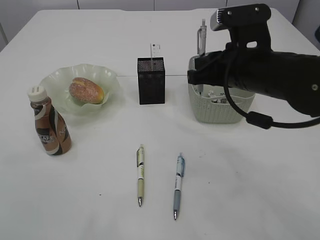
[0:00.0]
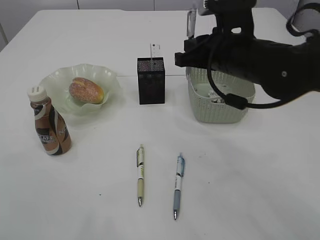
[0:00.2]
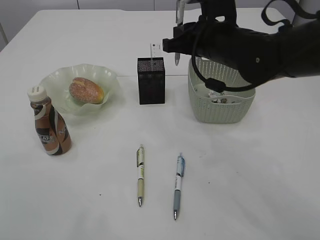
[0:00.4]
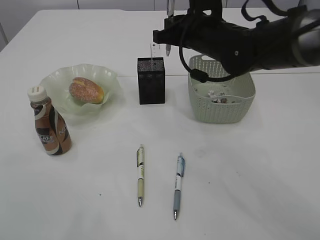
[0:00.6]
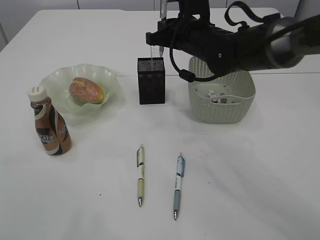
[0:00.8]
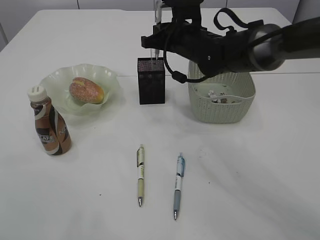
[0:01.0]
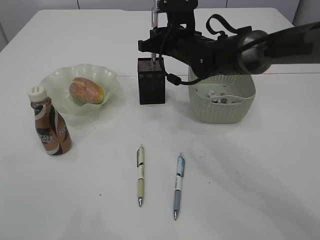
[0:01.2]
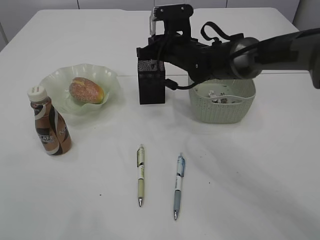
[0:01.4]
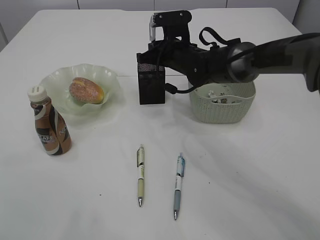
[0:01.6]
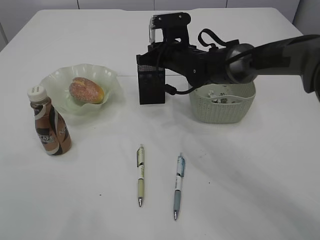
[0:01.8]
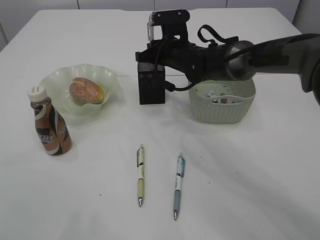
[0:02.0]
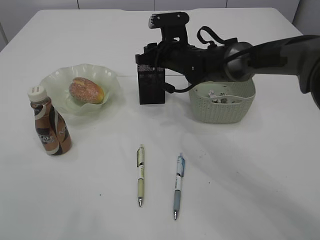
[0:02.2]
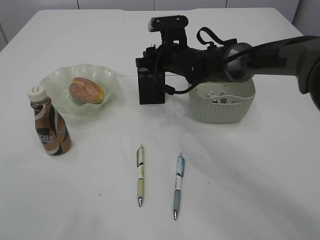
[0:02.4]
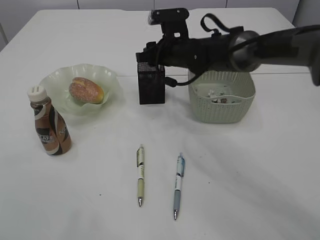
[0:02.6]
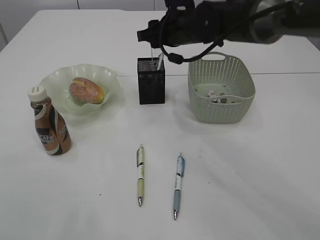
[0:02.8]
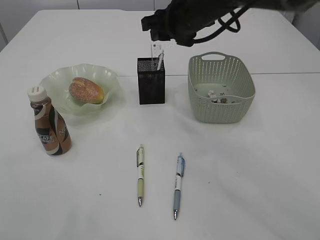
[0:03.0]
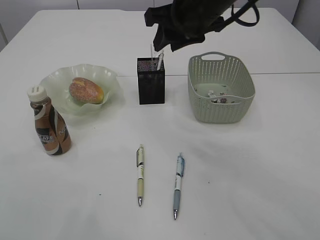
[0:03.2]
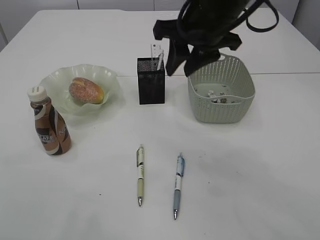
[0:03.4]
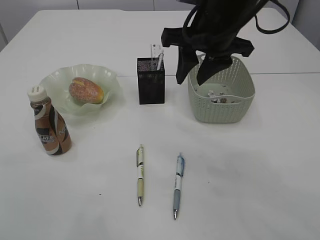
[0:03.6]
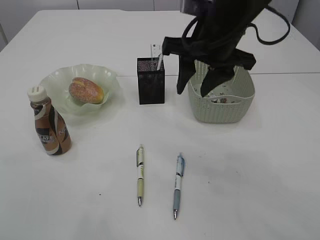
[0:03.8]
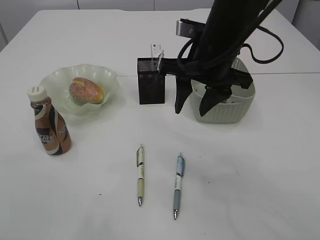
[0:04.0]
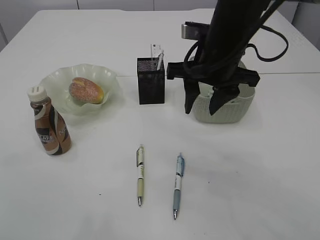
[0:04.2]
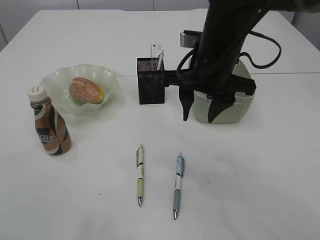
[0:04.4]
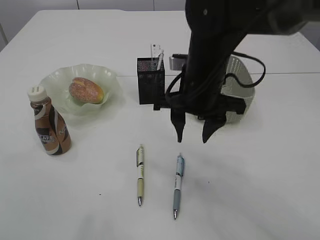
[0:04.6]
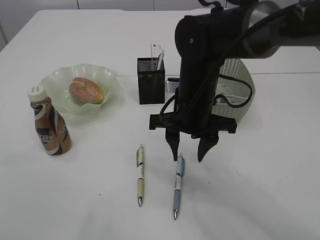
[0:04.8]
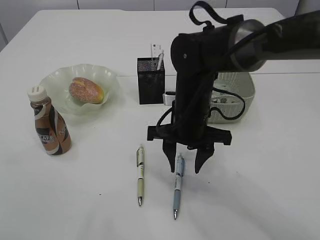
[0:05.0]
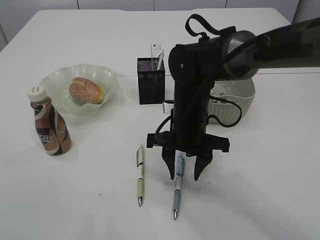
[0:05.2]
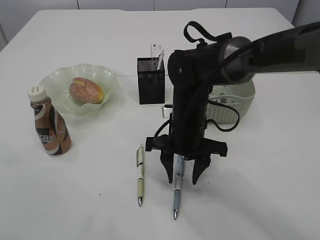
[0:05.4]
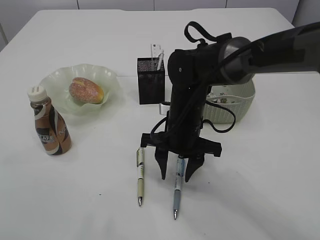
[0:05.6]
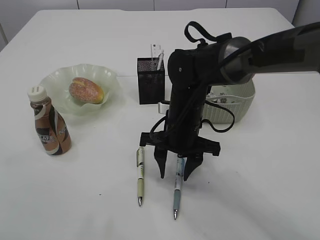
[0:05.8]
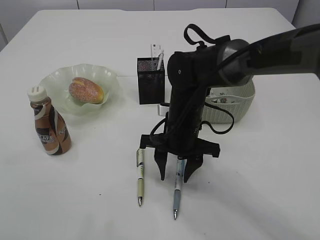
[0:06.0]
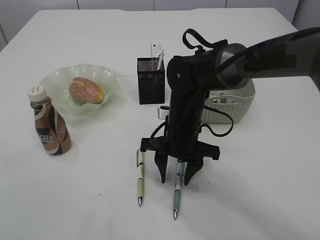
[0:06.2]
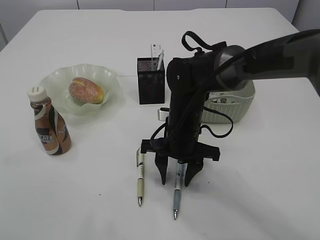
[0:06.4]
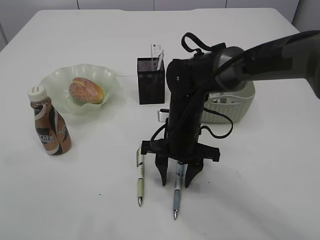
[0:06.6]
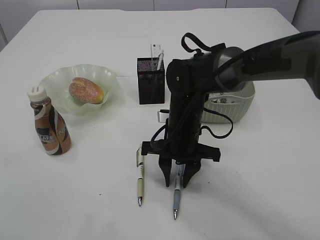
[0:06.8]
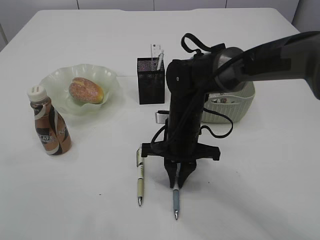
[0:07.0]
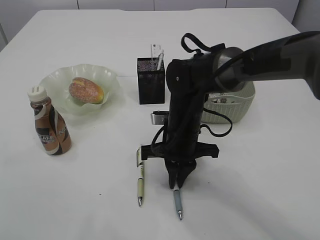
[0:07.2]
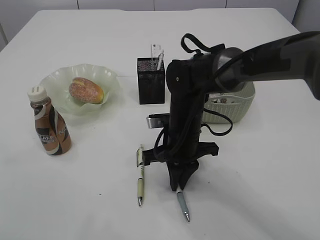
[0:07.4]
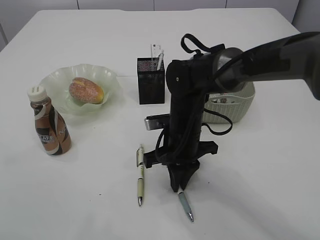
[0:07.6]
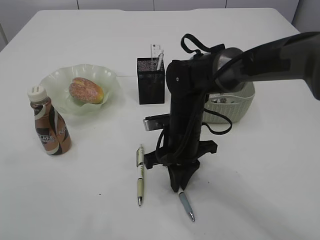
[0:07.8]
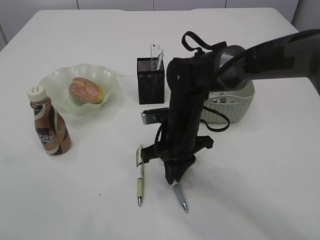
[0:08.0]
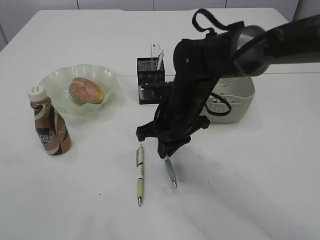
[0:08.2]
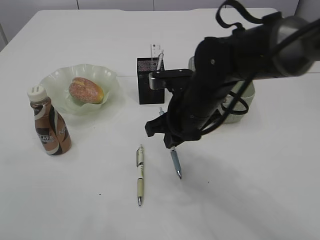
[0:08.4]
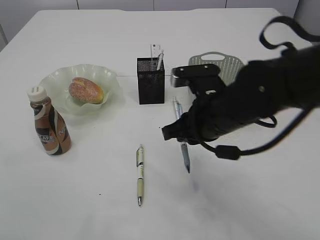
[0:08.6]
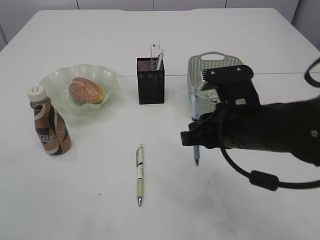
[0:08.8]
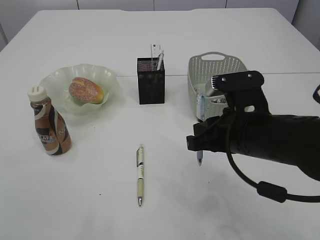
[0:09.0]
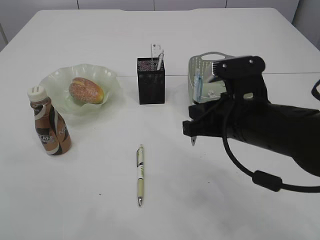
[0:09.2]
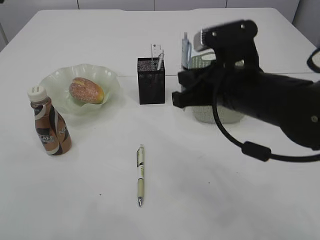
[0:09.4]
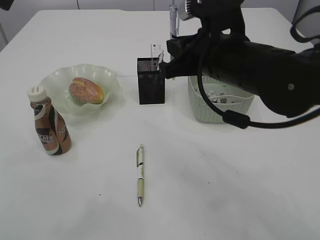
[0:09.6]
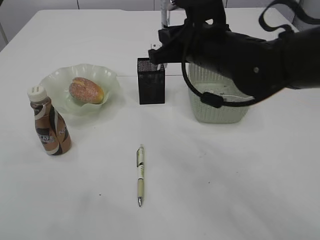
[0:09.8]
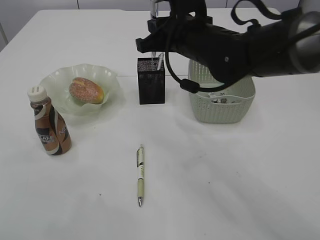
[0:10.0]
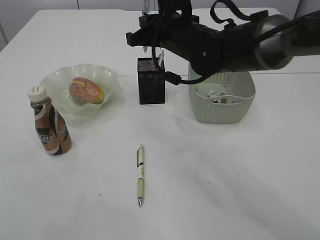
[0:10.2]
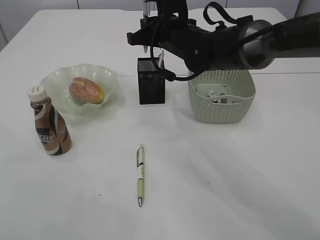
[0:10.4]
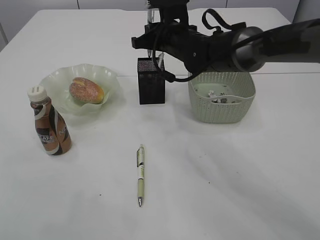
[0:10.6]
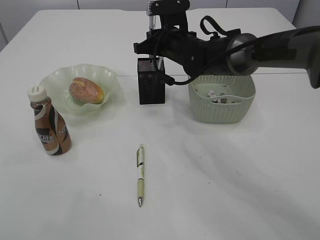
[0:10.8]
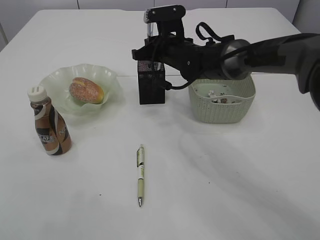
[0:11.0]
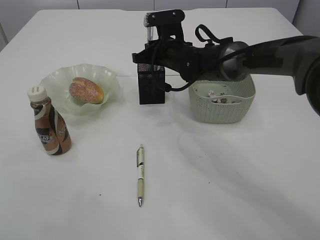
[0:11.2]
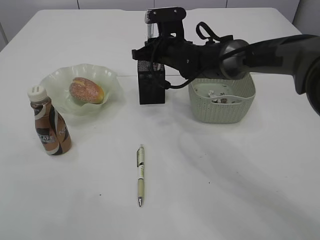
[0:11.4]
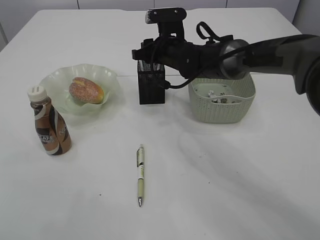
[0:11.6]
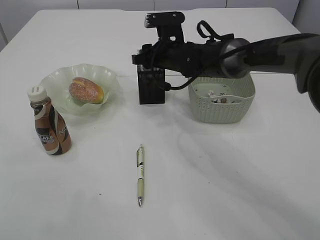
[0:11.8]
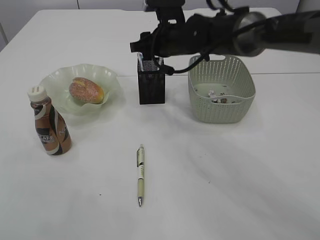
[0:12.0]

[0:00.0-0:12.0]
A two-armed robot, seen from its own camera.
Step, 0:00.0 to 0:03.0: Place the pen into the pen holder.
Step, 0:03.2 to 0:08.4: Pick up the pen with right arm.
Step, 0:08.6 to 0:12.0: Place the pen into the pen holder.
0:00.0 to 0:01.6: The right gripper moves forward and to the left, about 20 cm.
0:01.6 to 0:03.0: The right gripper heads upward, covering about 10 cm, and opens its fingers.
0:03.0 to 0:04.4: The right gripper shifts approximately 10 cm backward.
0:04.4 to 0:06.0: The right gripper shifts about 15 cm downward.
0:06.0 to 0:07.6: The right gripper closes its fingers.
0:07.6 to 0:09.0: The right gripper heads backward, to the right and upward, covering approximately 15 cm.
0:09.0 to 0:10.4: The right gripper travels forward by approximately 20 cm.
0:10.4 to 0:12.0: The right gripper opens up.

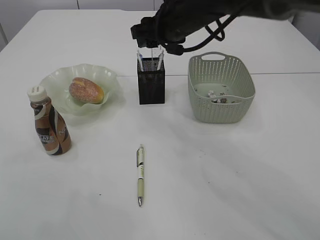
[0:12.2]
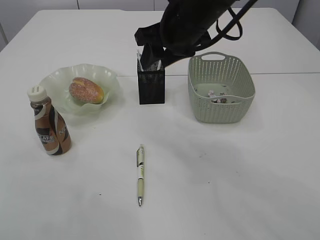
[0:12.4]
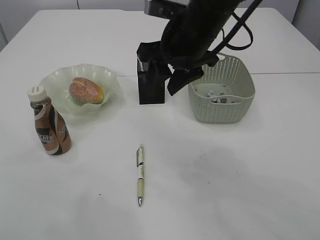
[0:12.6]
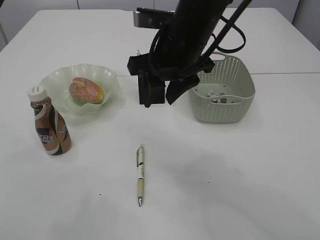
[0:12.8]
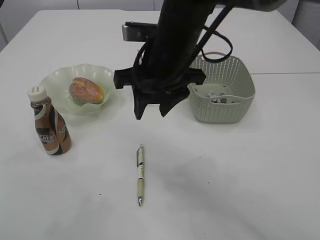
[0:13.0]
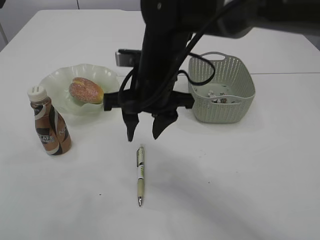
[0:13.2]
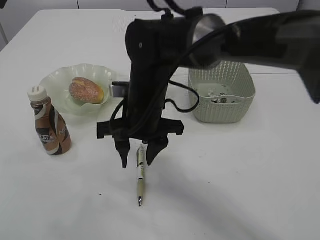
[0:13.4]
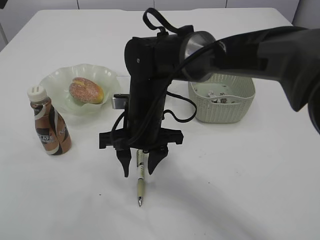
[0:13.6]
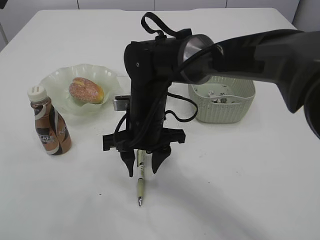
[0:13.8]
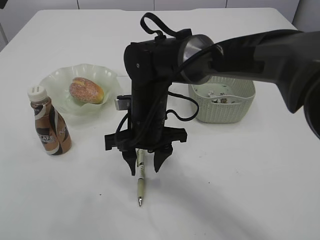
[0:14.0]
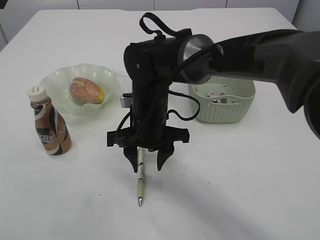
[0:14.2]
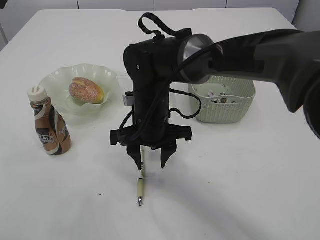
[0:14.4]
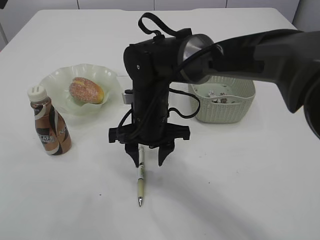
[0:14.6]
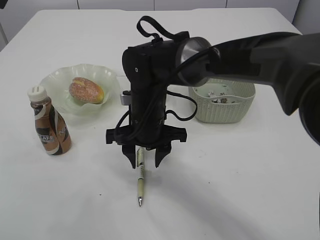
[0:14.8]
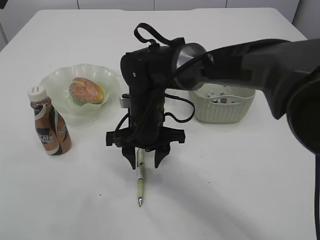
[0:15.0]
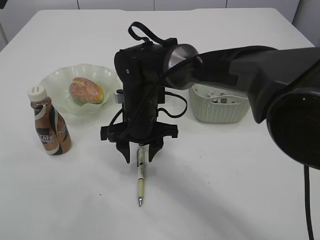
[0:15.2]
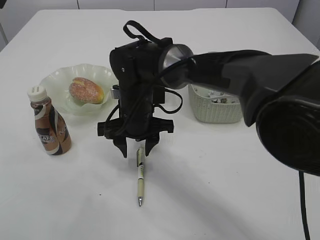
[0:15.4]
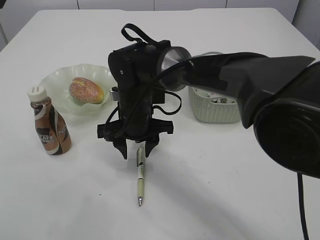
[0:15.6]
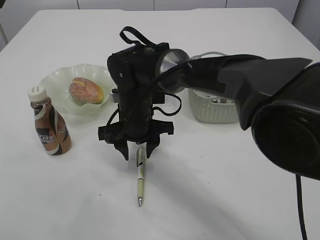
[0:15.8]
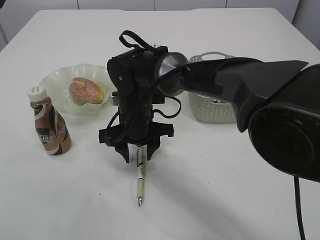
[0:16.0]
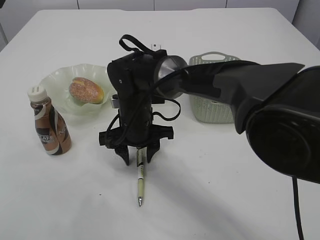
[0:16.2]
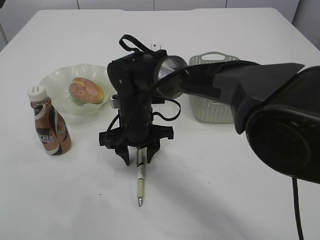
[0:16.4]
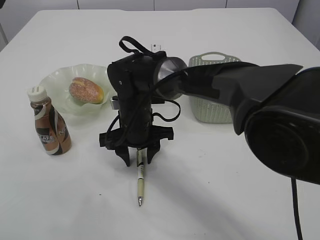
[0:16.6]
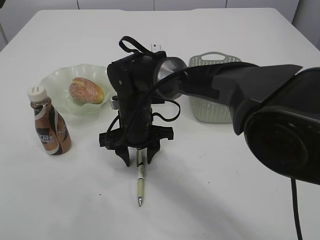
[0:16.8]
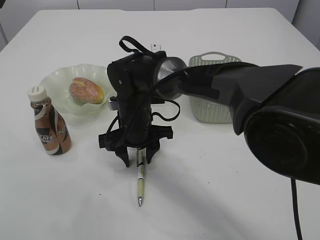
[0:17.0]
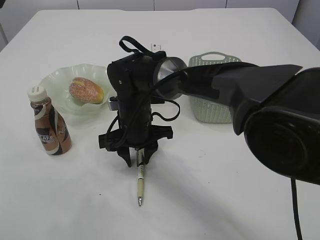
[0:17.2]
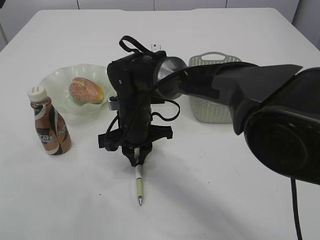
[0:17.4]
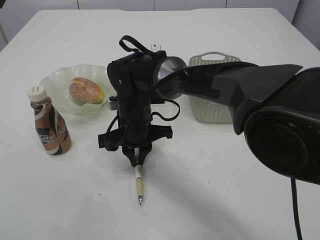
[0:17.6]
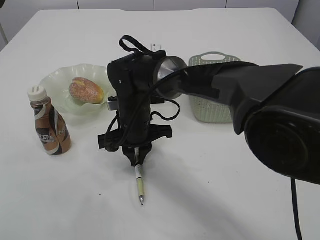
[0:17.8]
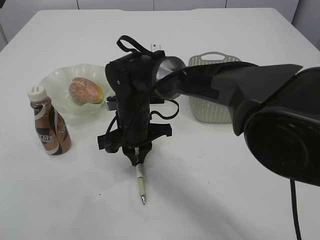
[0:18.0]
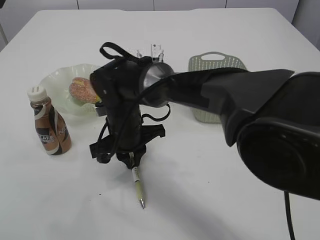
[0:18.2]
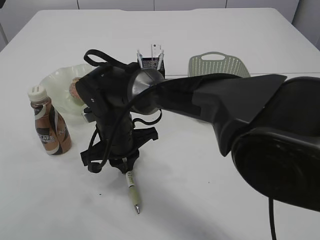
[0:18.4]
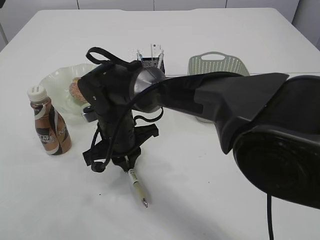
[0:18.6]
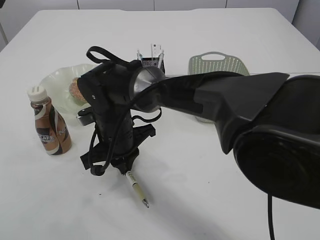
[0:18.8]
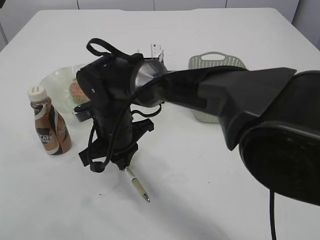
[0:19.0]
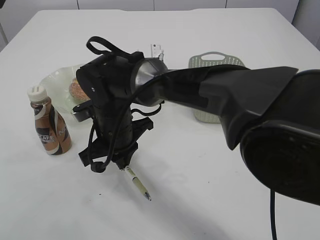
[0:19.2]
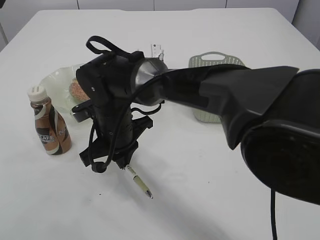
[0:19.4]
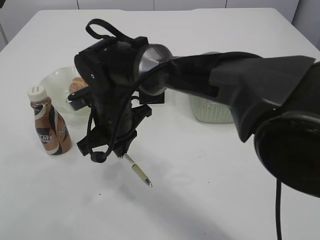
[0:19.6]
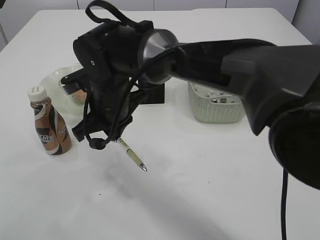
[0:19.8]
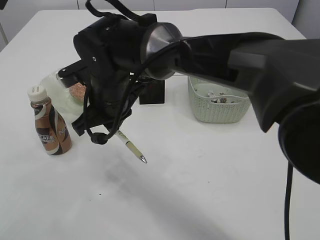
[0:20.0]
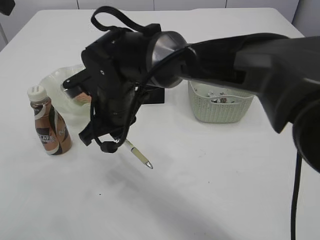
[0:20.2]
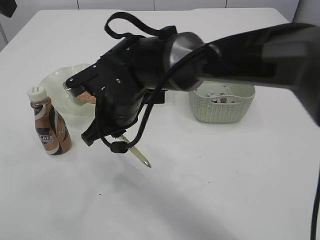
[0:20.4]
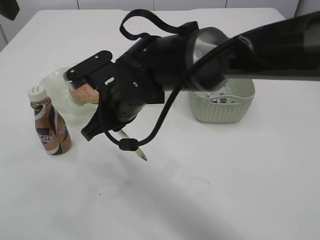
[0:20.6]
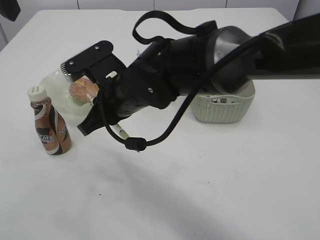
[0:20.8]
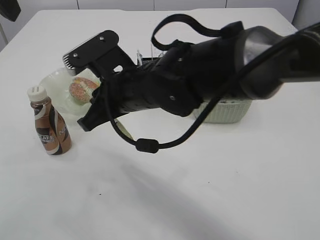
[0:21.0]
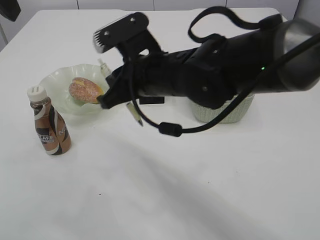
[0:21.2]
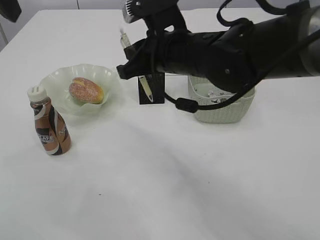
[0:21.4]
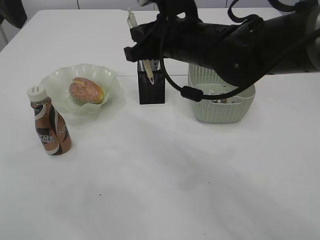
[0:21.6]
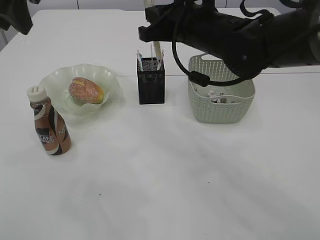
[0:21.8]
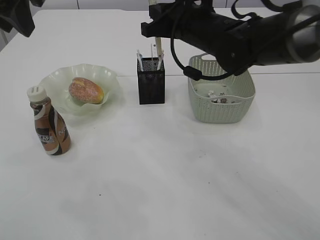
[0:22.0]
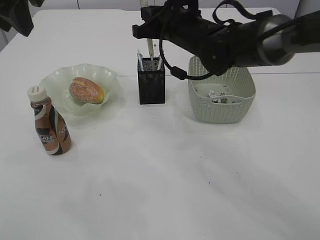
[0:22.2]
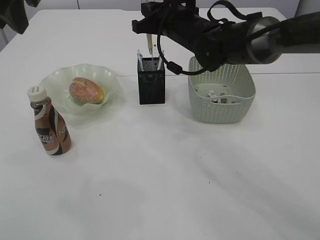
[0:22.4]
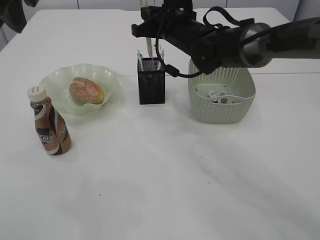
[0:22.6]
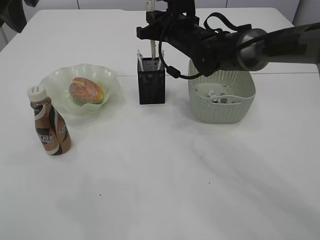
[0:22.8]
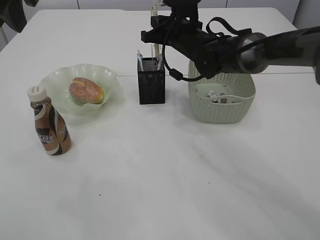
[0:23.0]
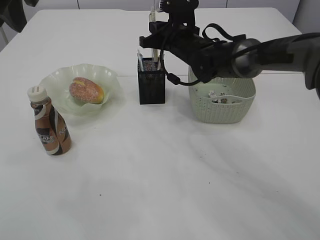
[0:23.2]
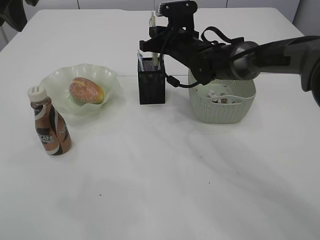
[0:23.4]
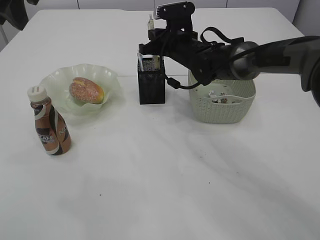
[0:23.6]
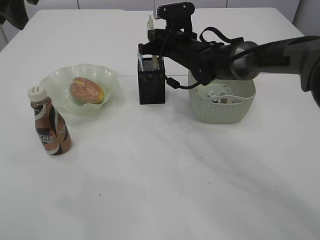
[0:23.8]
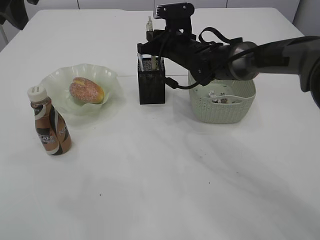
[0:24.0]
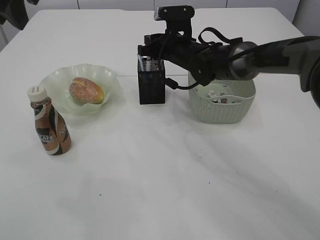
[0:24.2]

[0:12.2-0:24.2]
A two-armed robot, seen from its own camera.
Step, 0:12.2 to 0:19.4: Pick up the pen with right arm.
0:12.2 to 0:13.8: The right gripper goes approximately 15 cm downward, backward and to the left.
0:13.8 to 0:16.6: The grippers make only small movements.
0:16.6 to 0:18.2: The right gripper closes up.
0:18.2 to 0:19.8: The right gripper travels upward by roughly 5 cm.
0:19.8 to 0:21.2: The right gripper moves to the right, some 5 cm.
0:21.2 to 0:22.6: The right gripper moves forward, some 15 cm.
0:22.6 to 0:24.2: The right gripper is displaced downward by about 5 cm, and opens.
